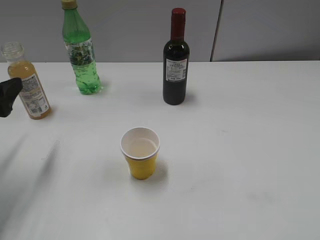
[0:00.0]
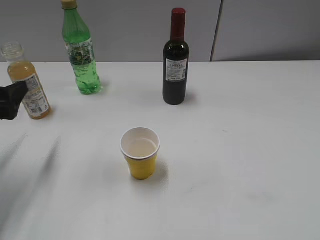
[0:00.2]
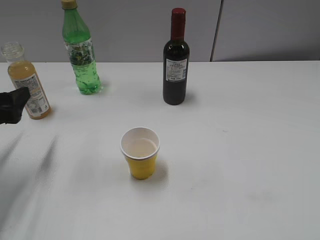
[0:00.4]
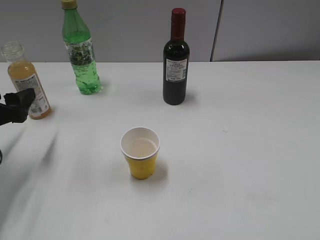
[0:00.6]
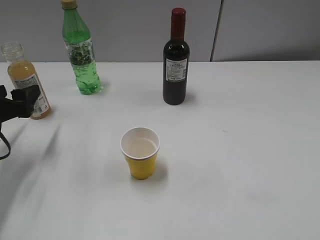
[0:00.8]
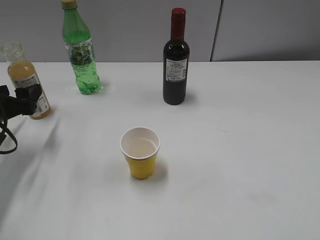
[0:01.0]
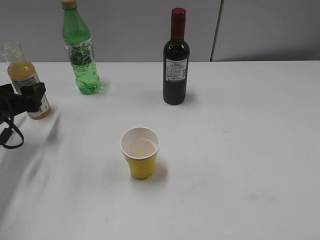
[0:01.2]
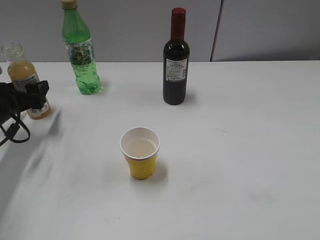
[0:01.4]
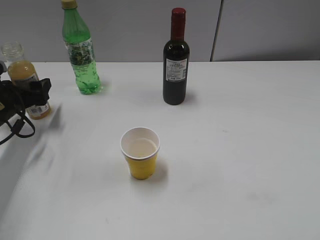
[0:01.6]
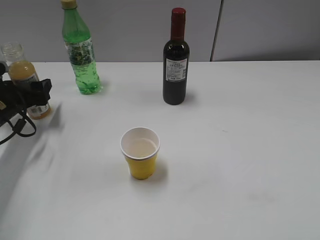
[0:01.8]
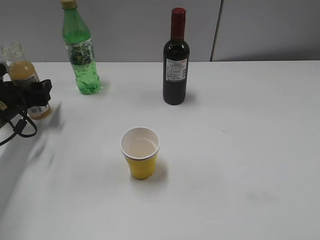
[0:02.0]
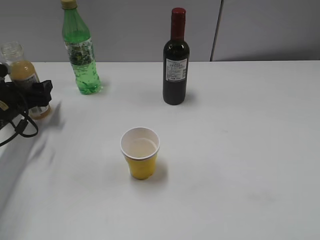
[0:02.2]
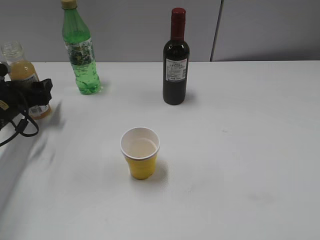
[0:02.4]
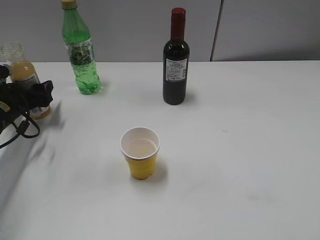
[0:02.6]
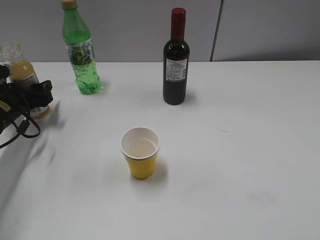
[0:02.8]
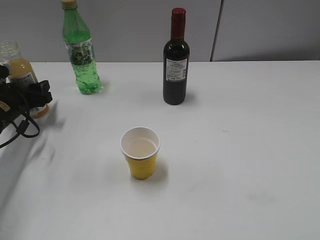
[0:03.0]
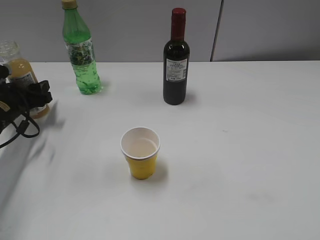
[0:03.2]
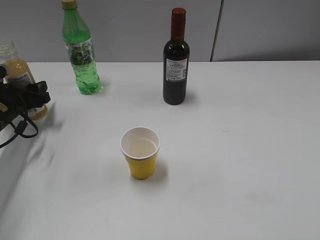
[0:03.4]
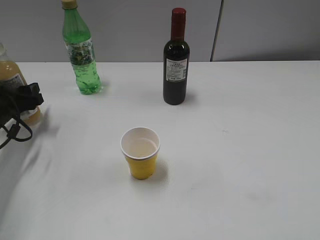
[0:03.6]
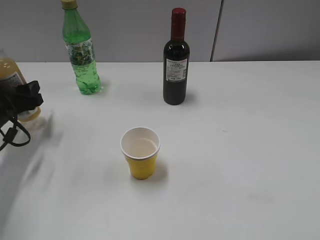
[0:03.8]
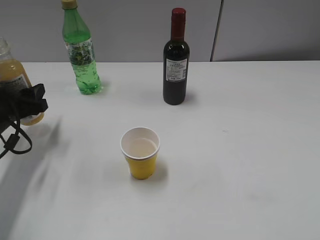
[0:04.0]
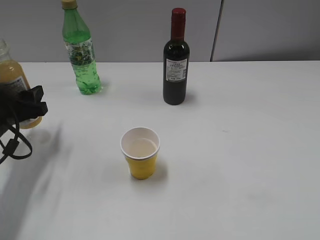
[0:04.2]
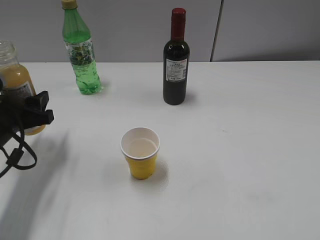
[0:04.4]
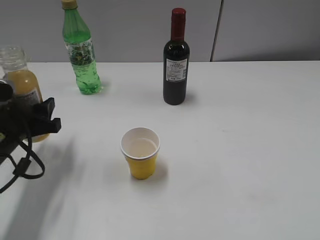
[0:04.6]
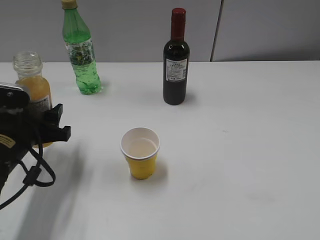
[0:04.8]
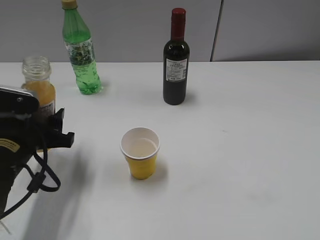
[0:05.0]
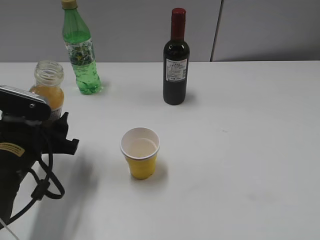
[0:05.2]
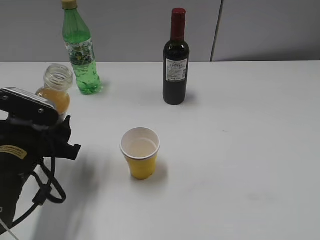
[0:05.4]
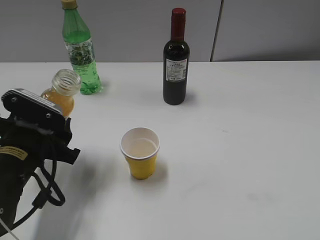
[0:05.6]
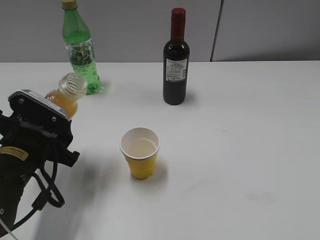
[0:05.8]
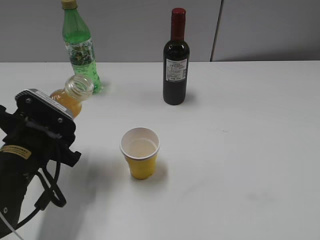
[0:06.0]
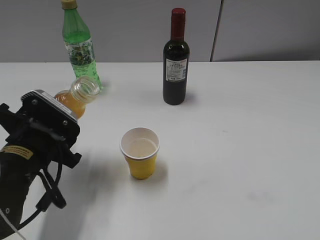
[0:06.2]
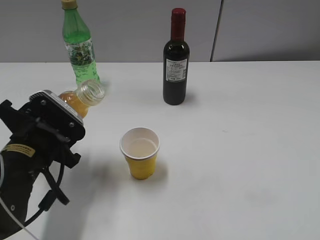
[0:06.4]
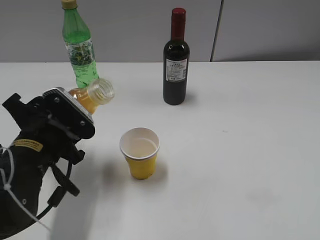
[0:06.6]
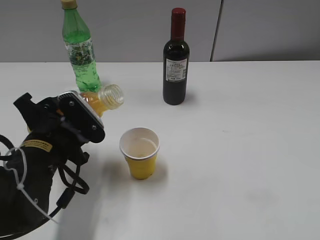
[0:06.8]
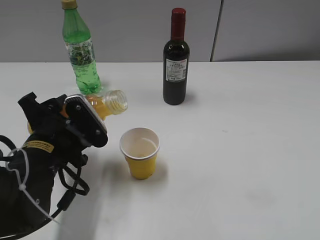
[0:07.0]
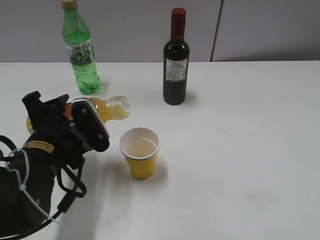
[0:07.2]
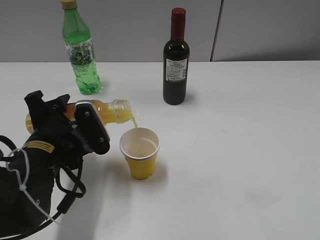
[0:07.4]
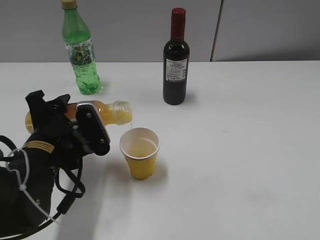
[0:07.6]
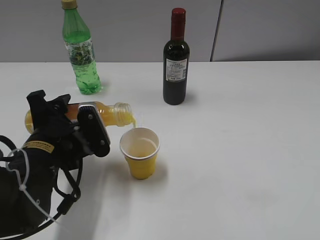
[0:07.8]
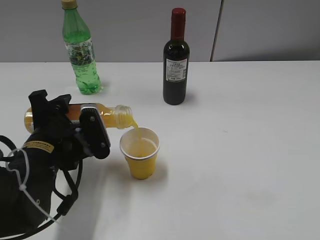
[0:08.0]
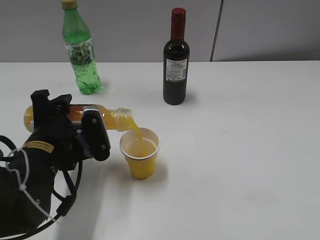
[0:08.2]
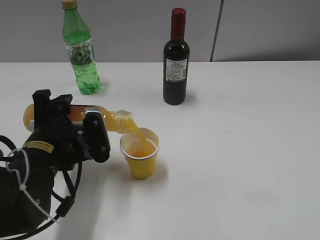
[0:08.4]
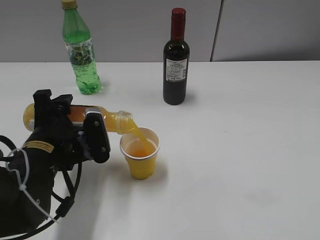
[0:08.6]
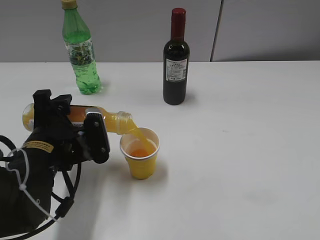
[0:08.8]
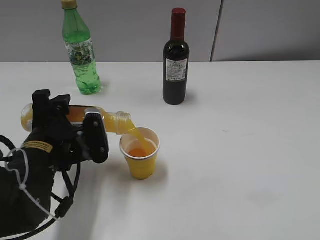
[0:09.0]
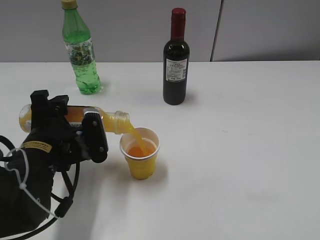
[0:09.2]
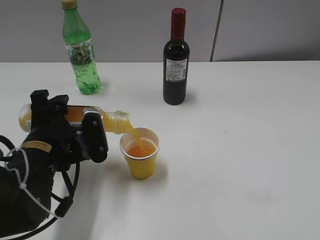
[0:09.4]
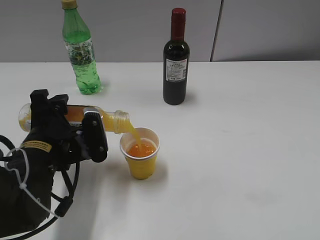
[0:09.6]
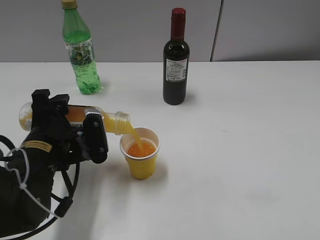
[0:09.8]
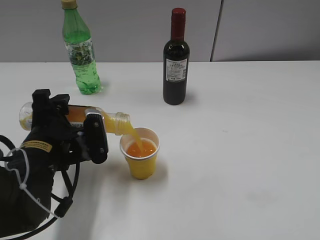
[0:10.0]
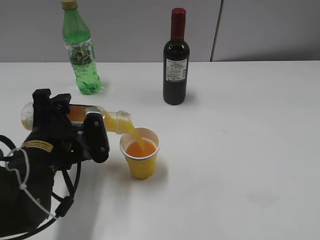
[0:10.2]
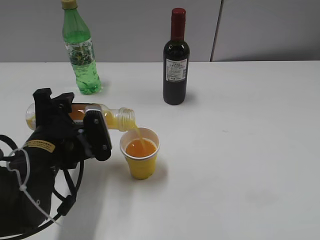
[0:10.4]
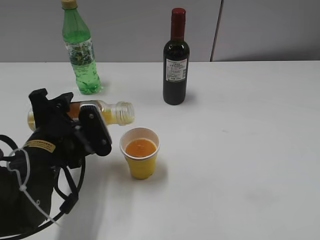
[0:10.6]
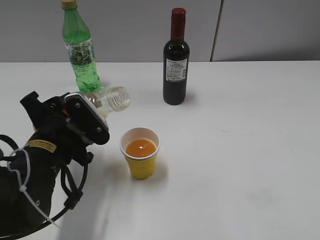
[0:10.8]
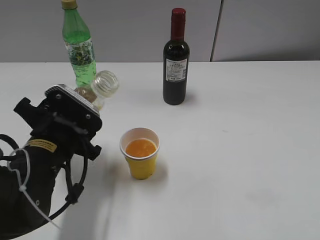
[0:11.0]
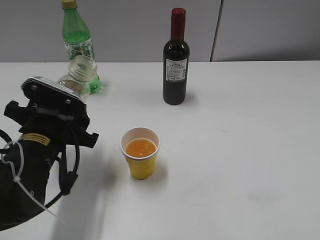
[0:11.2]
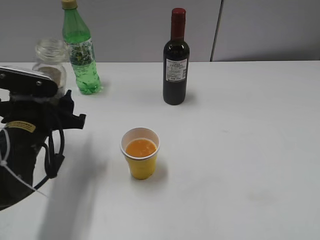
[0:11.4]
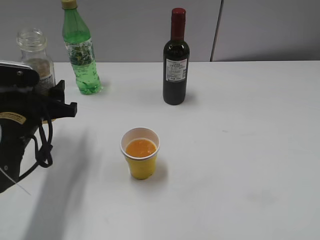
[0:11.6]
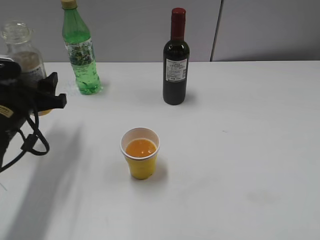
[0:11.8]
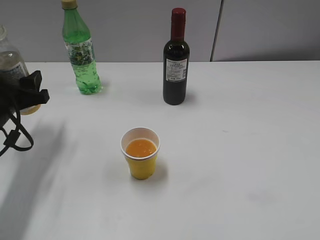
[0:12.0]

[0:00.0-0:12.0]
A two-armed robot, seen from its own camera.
Step, 0:00.0 to 0:03.2: Grasp the bottle with orange juice with left gripper.
Step, 0:03.4 to 0:10.8: Pour the orange juice from bottle to cup with left gripper.
0:00.0 to 0:01.6: The left gripper is displaced forward and downward by roughly 15 cm.
0:01.6 to 0:03.0: The left gripper closes.
0:03.0 to 0:04.4: The left gripper heads backward and upward, covering approximately 10 cm.
0:04.4 to 0:06.0: The left gripper goes about 10 cm to the right and backward.
0:07.6 to 0:09.0: The grippers stay close to where they were, moving slightly.
0:09.0 to 0:10.4: The two grippers keep their place.
0:10.4 to 0:12.0: The left gripper is displaced to the left and forward by roughly 15 cm.

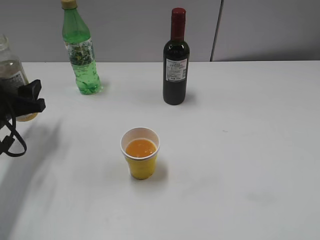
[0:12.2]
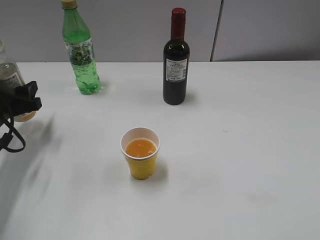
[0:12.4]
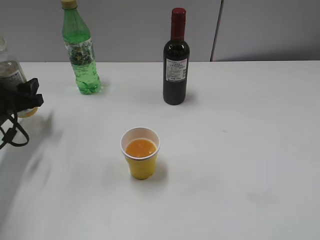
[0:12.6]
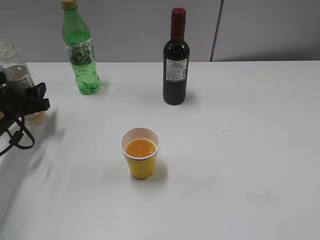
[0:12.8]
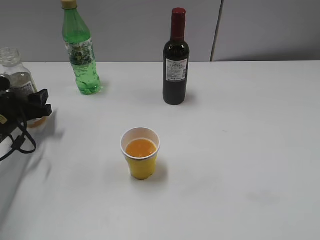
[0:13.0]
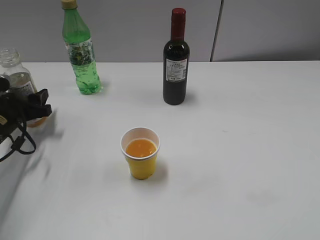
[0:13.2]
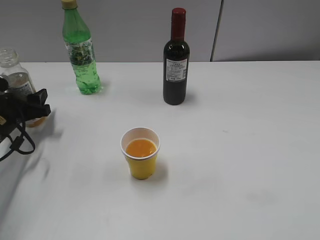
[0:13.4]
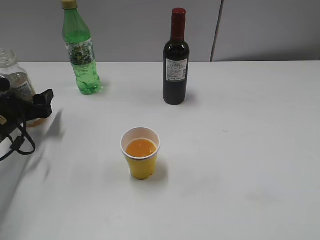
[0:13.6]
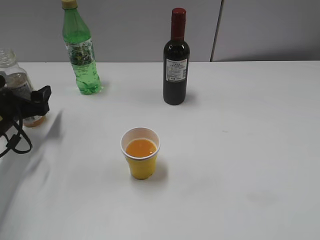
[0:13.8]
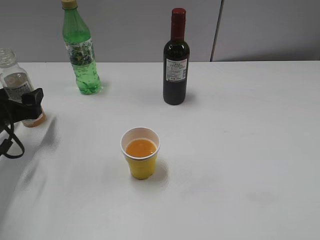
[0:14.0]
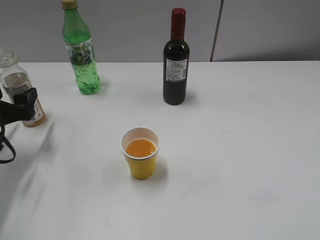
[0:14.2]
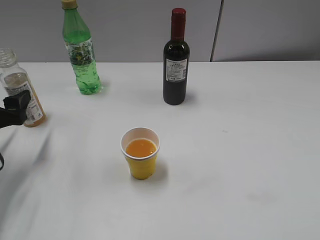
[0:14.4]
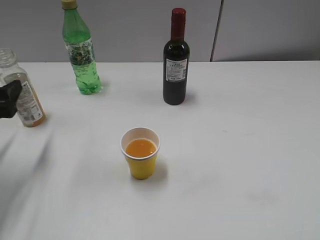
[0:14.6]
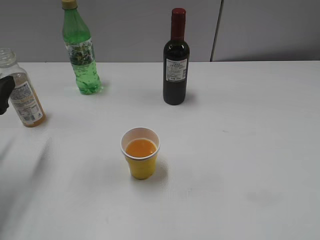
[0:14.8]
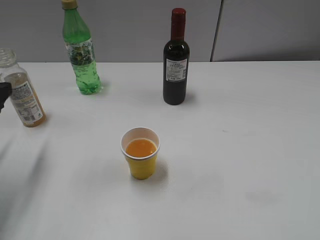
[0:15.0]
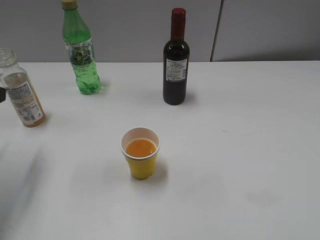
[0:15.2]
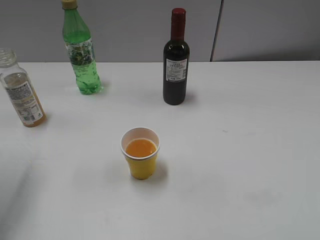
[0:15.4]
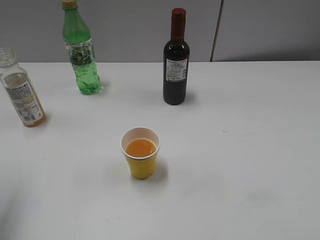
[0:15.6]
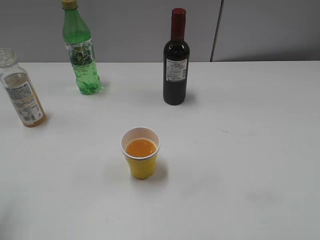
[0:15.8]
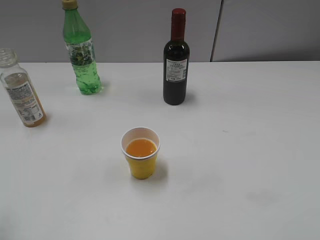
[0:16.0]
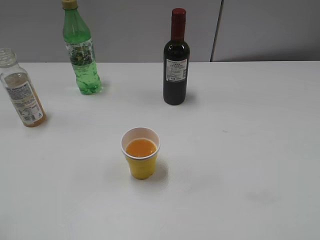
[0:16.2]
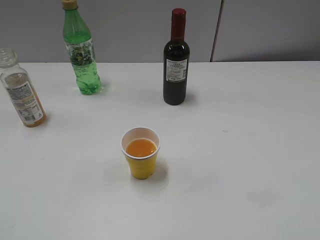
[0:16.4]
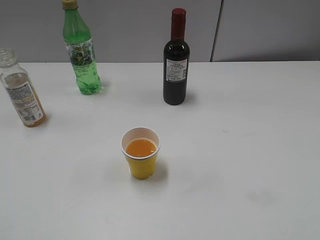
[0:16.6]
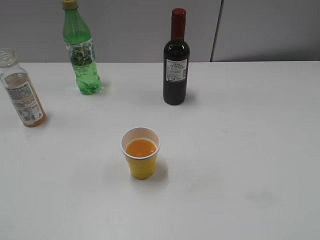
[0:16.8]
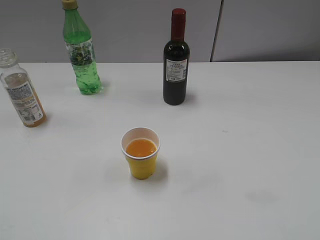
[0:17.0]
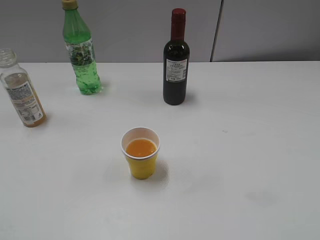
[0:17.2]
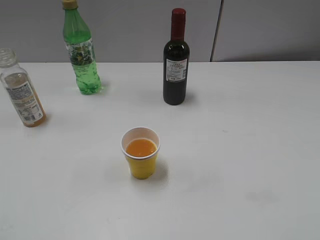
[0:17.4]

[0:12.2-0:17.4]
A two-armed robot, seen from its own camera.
Step, 0:12.2 to 0:13.8: Place the orange juice bottle on the table with left gripper.
0:12.2 to 0:14.0: The left gripper opens.
0:14.0 to 0:15.6: The left gripper is displaced upward and backward by about 25 cm.
0:15.6 to 0:17.4: The left gripper shifts some 20 cm backward.

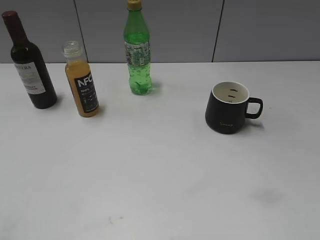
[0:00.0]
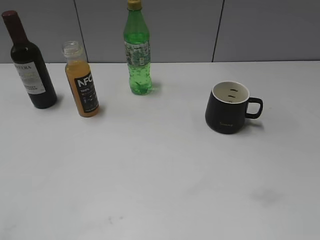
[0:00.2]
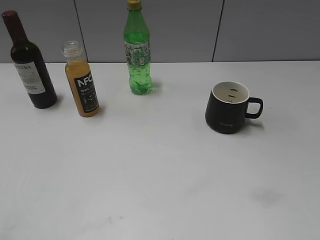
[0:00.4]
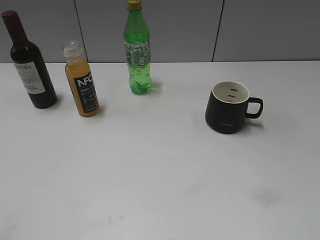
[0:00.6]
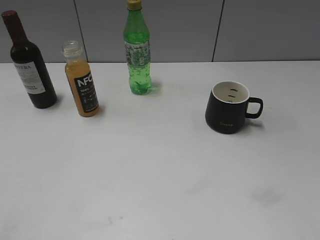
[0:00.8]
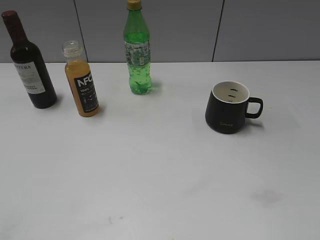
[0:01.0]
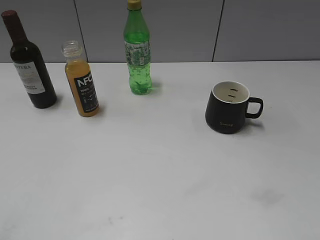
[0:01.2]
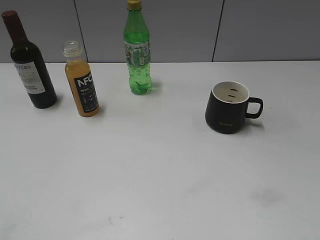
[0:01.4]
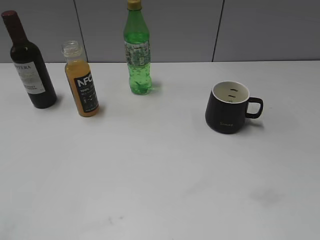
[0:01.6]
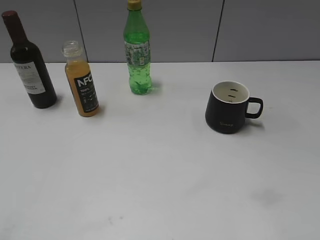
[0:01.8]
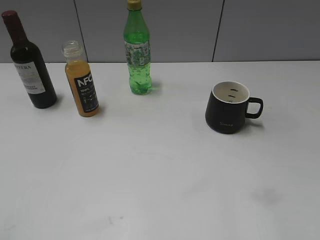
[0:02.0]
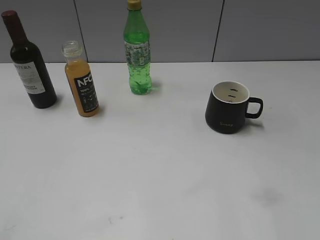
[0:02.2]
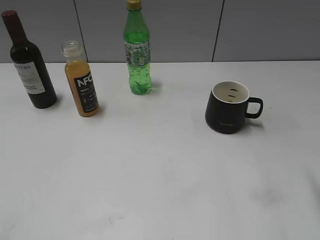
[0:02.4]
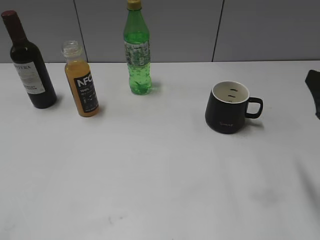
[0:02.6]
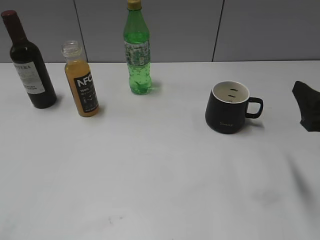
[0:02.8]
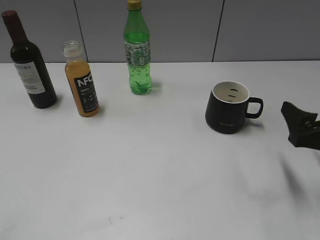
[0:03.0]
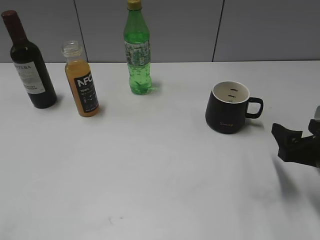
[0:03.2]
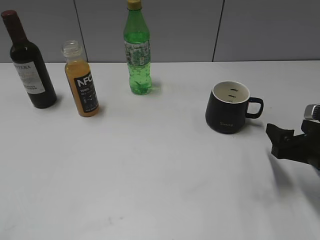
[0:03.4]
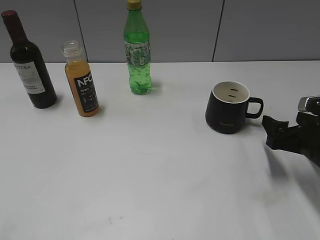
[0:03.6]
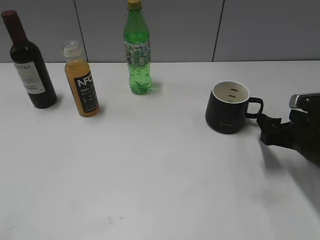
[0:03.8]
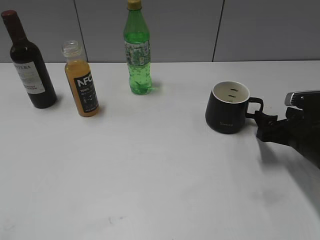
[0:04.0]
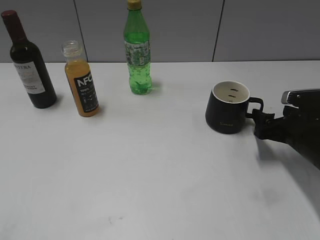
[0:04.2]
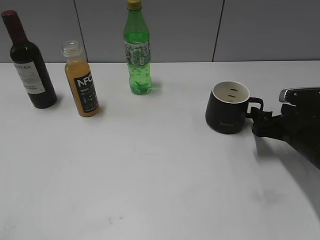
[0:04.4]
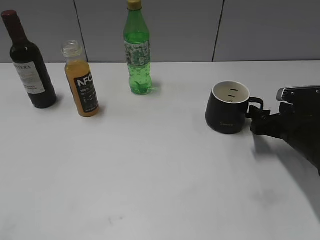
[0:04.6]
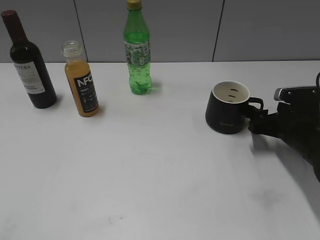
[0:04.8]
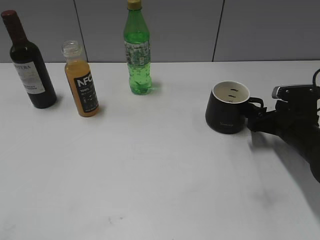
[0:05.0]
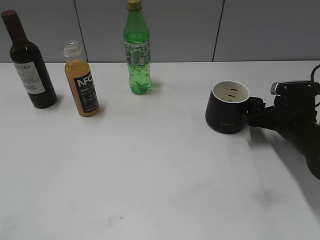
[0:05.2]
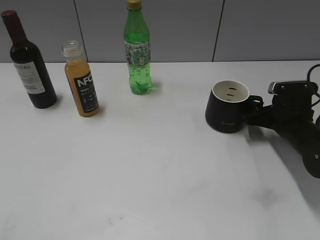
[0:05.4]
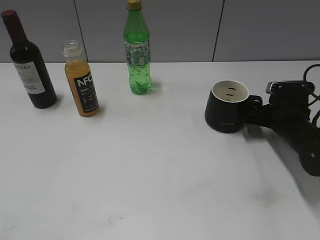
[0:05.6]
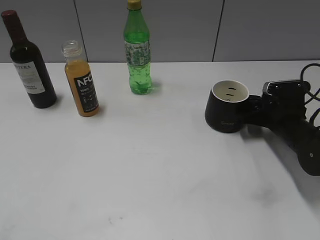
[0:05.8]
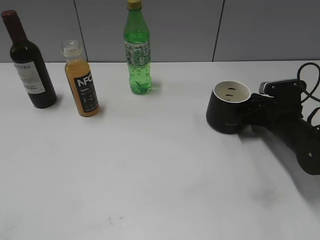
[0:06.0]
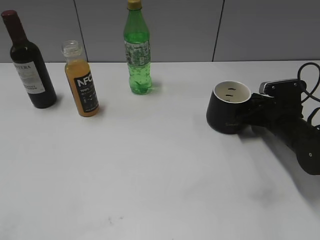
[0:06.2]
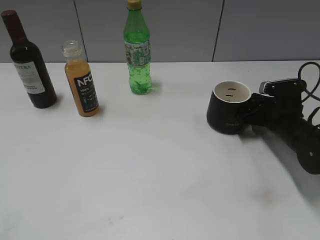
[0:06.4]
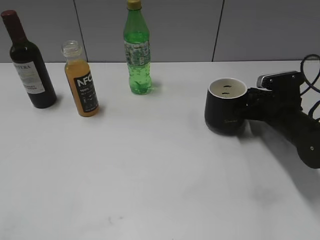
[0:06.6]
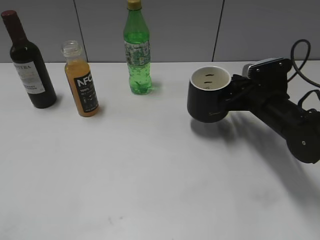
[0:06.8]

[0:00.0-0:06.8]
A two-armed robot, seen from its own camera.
Step, 0:02.6 to 0:06.2: Grasp the black cup with right gripper.
0:01.4 to 0:02.8: The right gripper heads forward and downward, covering about 20 cm.
0:02.8 to 0:04.0: The right gripper is displaced downward and forward by about 15 cm.
0:04.0 to 0:05.4: The right gripper goes roughly 5 cm forward.
0:05.4 to 0:06.8: The right gripper moves to the left, roughly 5 cm, and closes its fingers.
